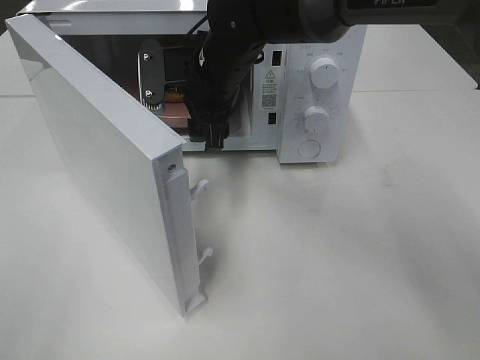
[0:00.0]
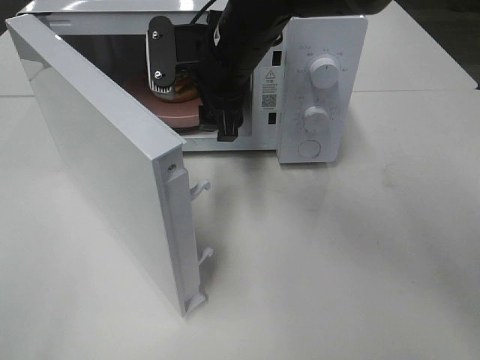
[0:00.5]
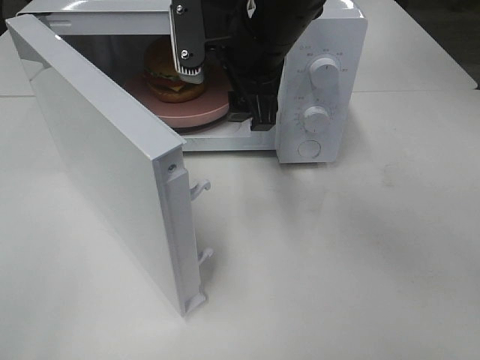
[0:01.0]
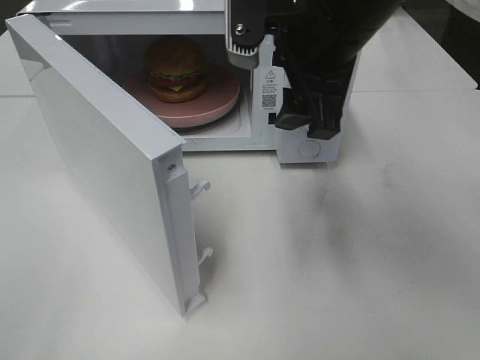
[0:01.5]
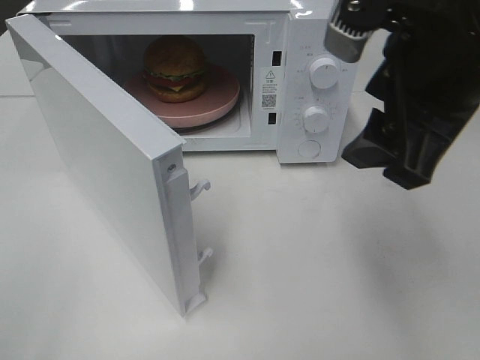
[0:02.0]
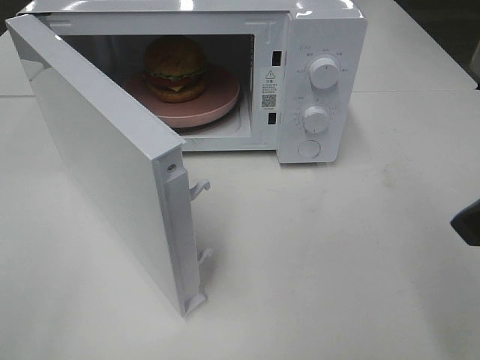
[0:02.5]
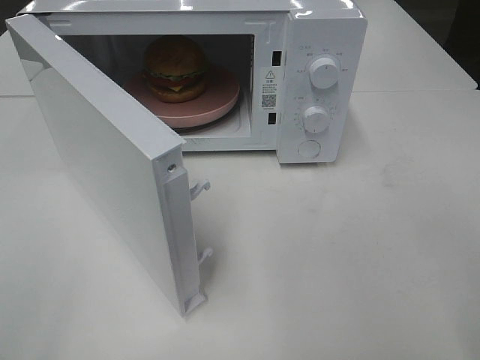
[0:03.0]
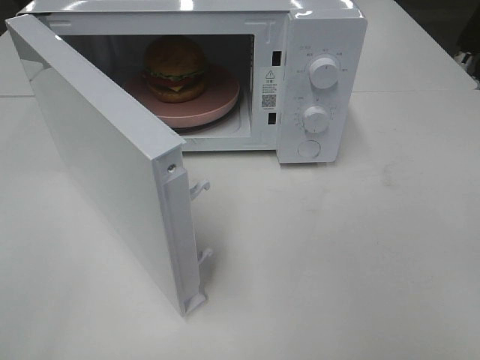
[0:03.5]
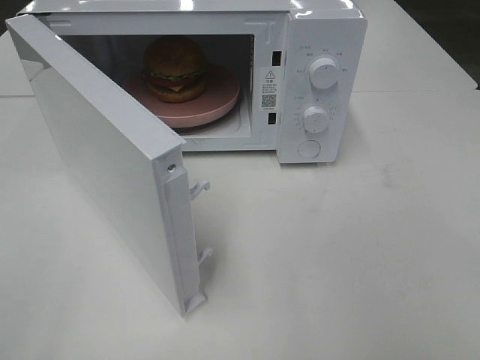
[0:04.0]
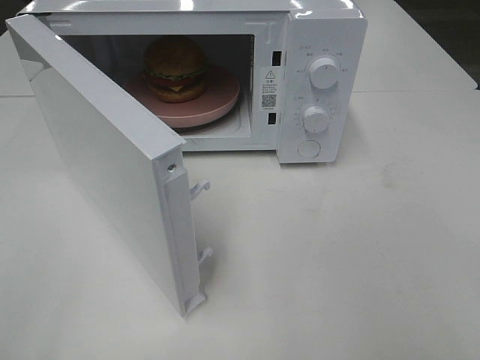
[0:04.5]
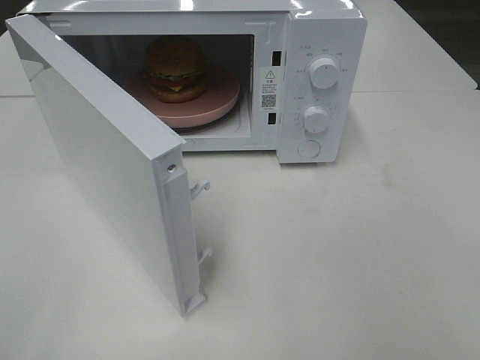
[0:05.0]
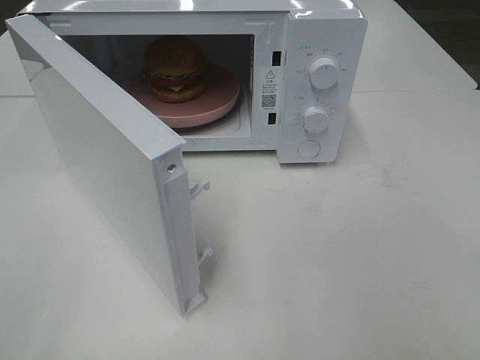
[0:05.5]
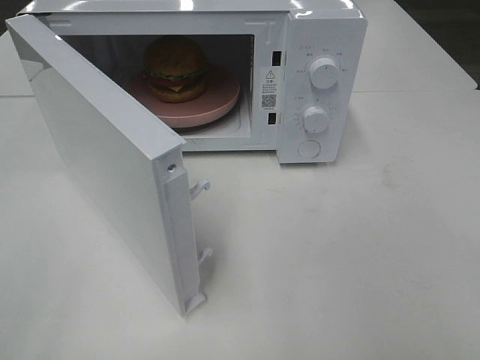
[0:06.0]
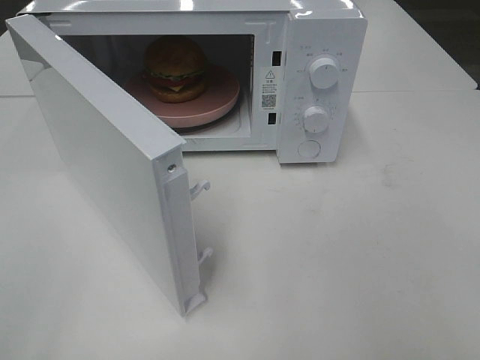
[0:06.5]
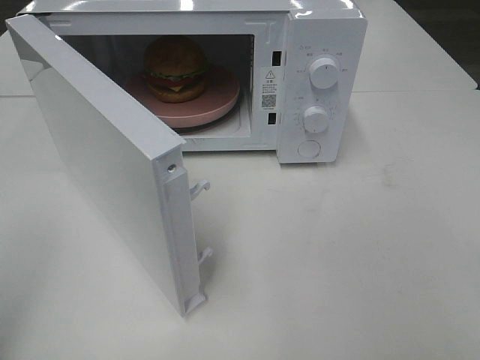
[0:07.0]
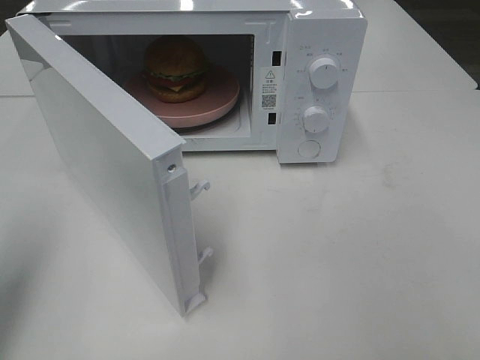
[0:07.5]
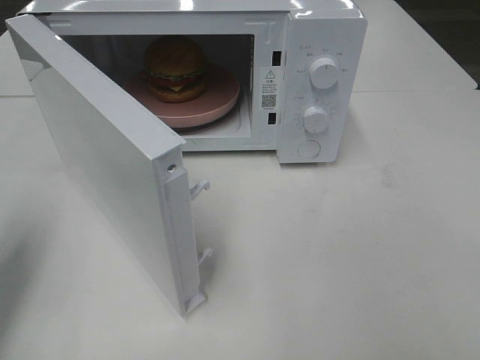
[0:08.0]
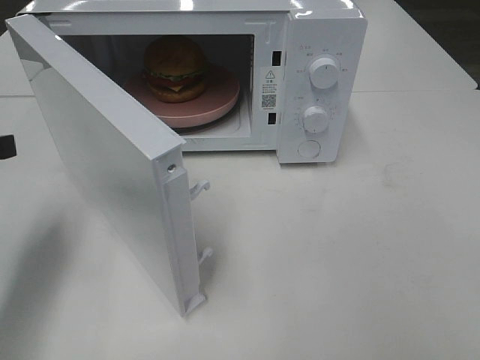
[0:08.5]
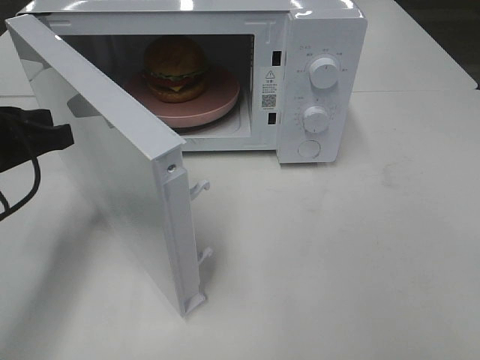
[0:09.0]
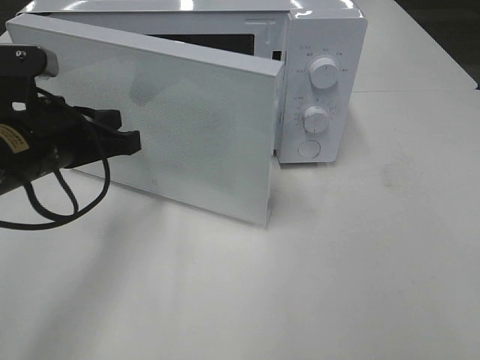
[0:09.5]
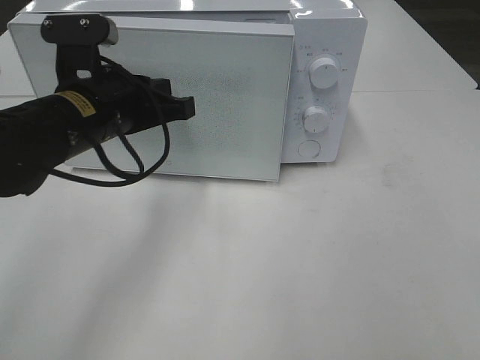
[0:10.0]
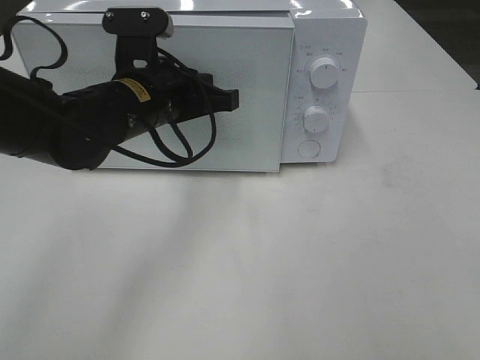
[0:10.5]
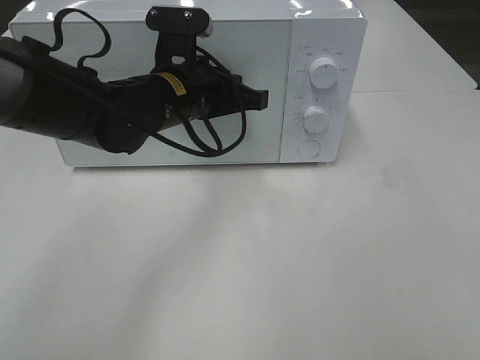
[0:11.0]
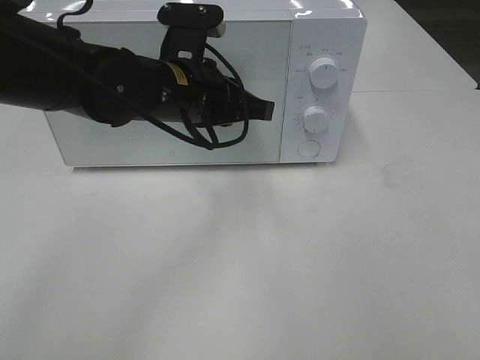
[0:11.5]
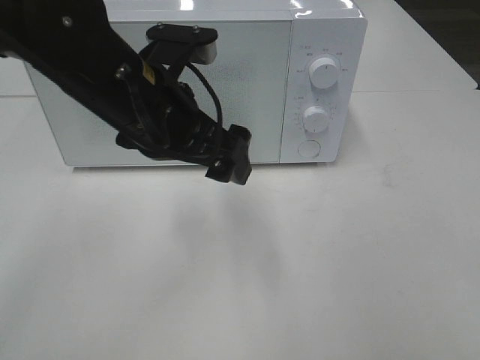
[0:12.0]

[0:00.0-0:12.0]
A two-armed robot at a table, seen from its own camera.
Task of the whole recording: Heat the burger.
Step, 0:00.0 to 0:11.0: Left hand: close the microwave door.
0:00.0 to 0:02.0: The right gripper heads backward, to the right and upward, covering some 30 cm.
0:02.0 to 0:04.0: The right gripper is displaced backward and to the right by approximately 20 cm.
0:06.0 to 0:08.0: The left gripper shifts some 20 cm forward, and closes.
0:08.0 to 0:10.0: The left gripper shifts roughly 20 cm to the right and forward.
0:10.0 to 0:12.0: The left gripper goes some 5 cm to the right, and opens its fingers.

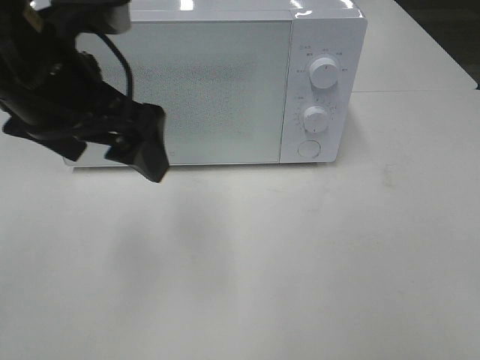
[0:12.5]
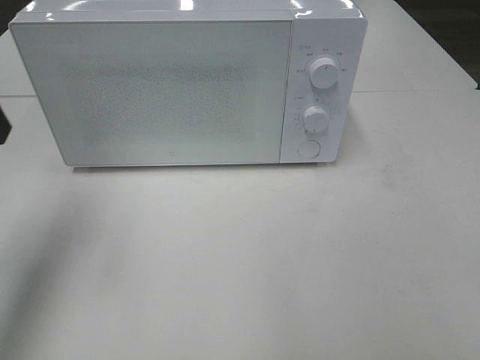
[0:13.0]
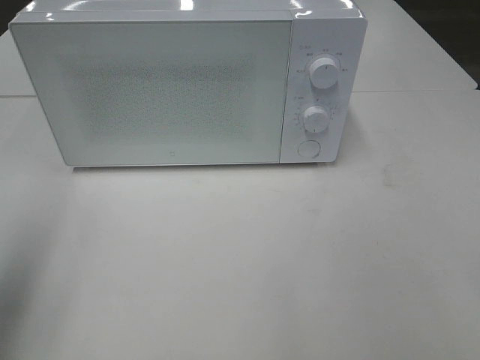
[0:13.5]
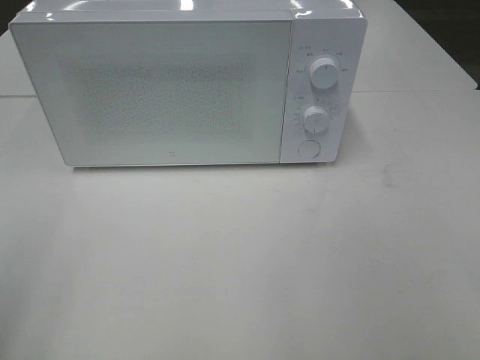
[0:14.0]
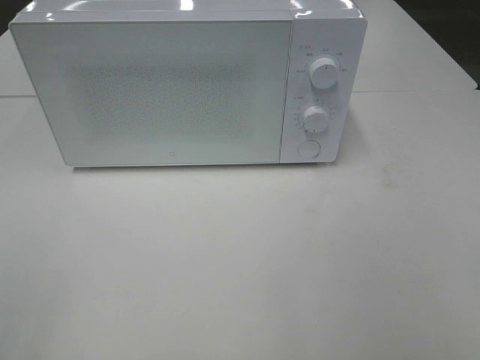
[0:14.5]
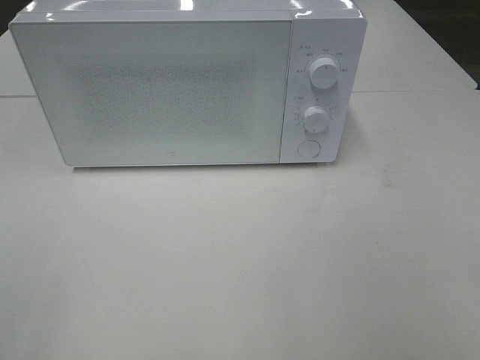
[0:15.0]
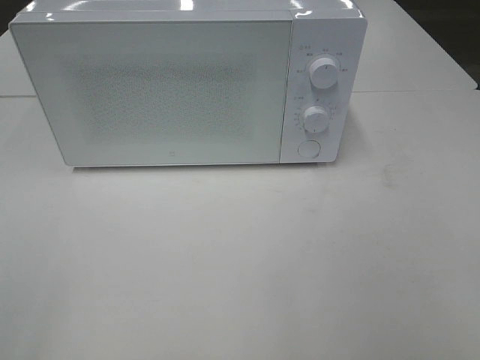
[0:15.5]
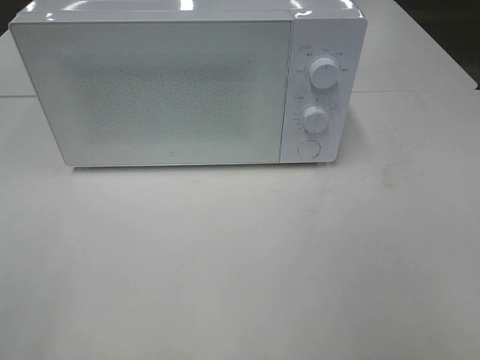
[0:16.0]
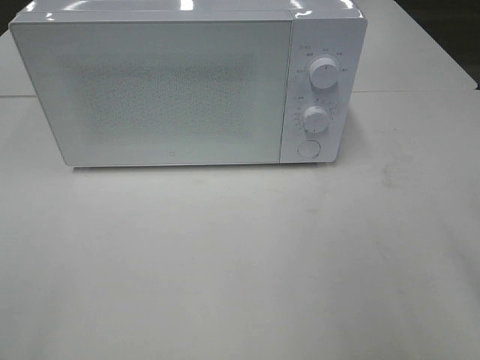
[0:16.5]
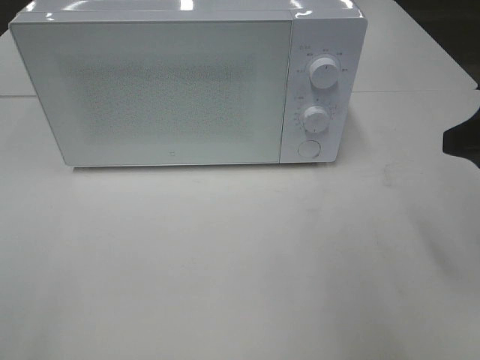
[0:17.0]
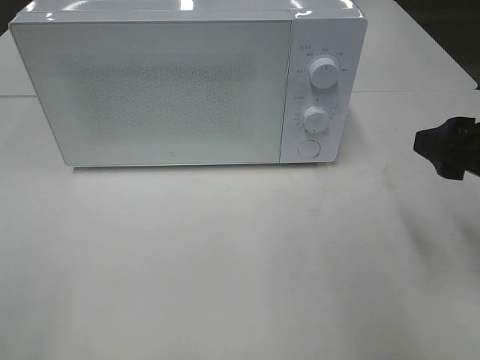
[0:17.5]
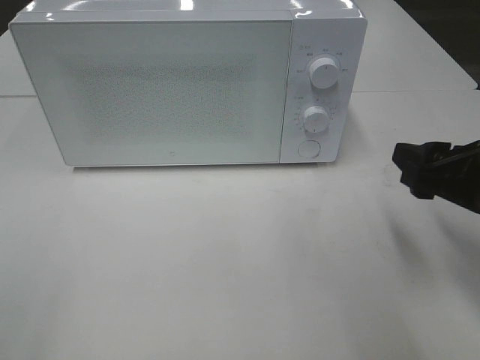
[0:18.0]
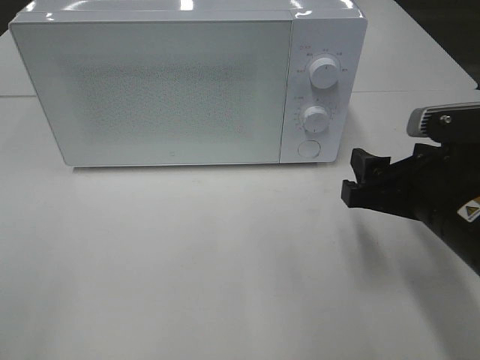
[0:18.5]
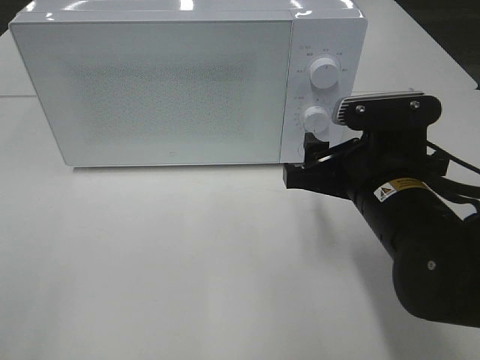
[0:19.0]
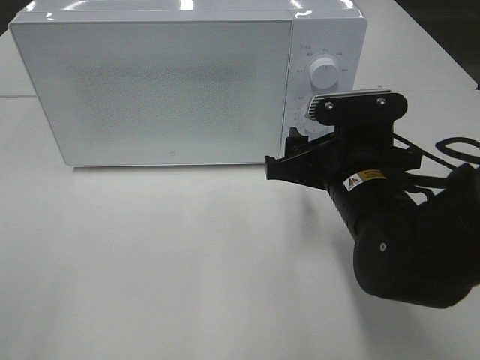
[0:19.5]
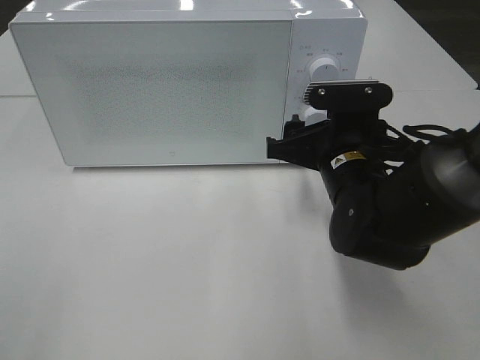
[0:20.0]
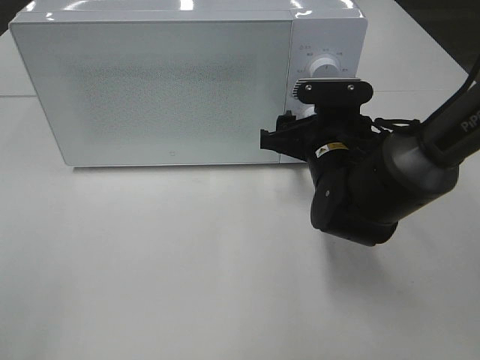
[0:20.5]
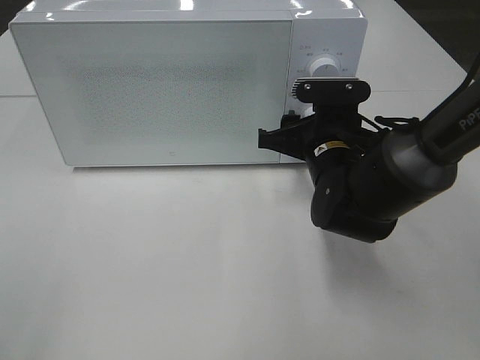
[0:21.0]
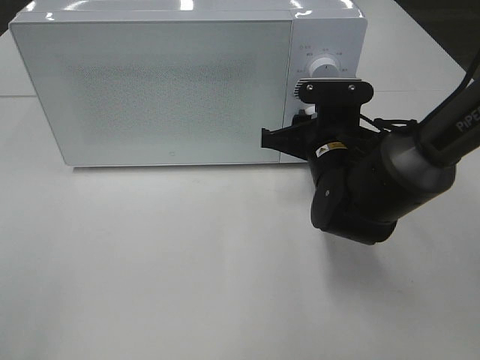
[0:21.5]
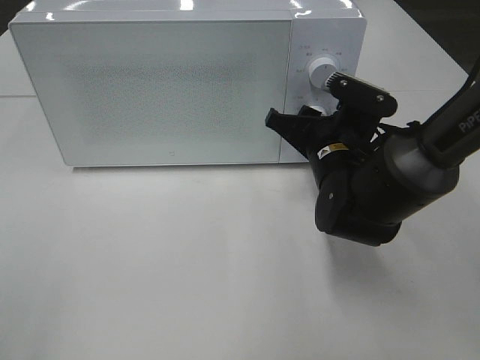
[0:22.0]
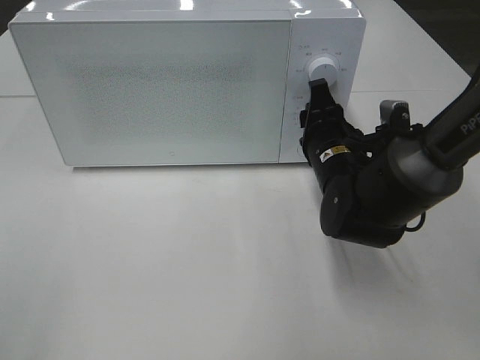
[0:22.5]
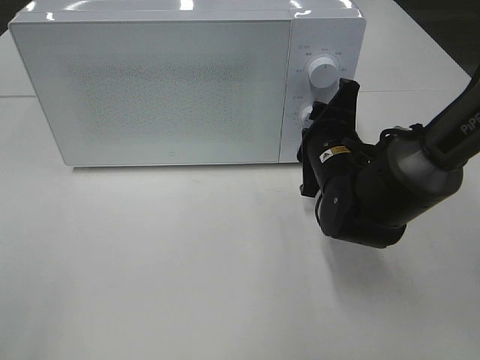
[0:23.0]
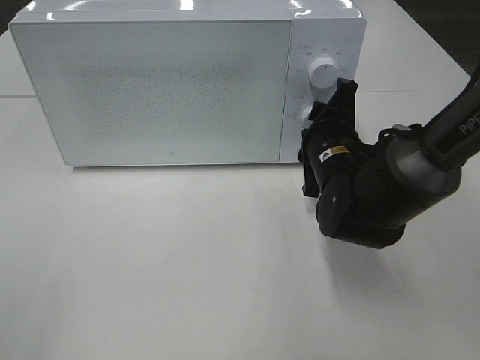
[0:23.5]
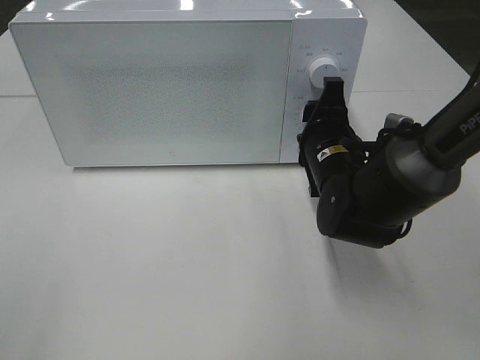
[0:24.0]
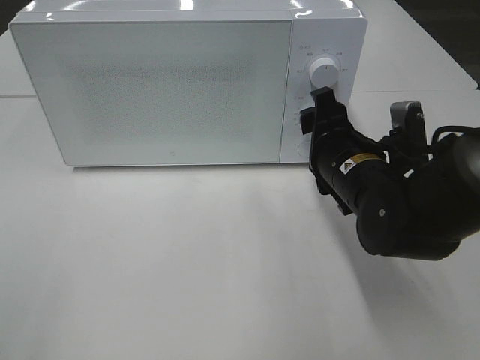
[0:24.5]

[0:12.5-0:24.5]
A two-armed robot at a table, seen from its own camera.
Task of the whole recording: Heat the burger.
Step, 0:12.5 to 0:24.0: Right hand: twist timer button.
0:12.5 to 0:14.5: The left gripper heads backward and to the left, covering approximately 30 cm.
0:16.5 to 0:18.5: The right gripper is displaced downward, forward and to the left by about 20 cm.
0:18.5 to 0:20.5: The right gripper heads forward and to the left, covering some 15 cm.
0:20.5 to 0:22.5: The right gripper closes its fingers.

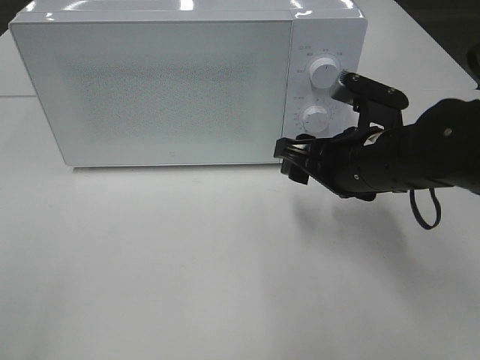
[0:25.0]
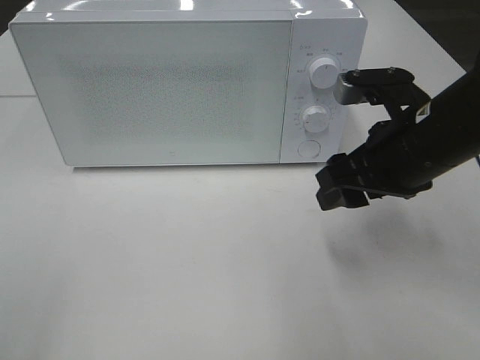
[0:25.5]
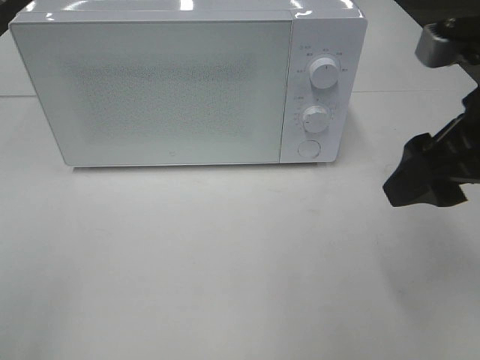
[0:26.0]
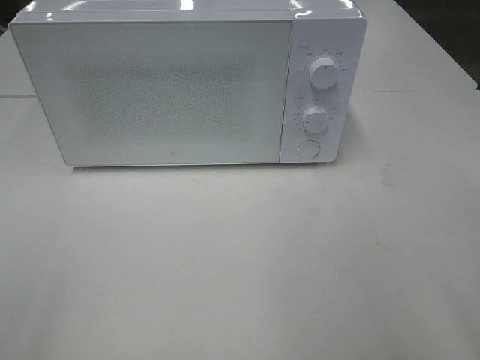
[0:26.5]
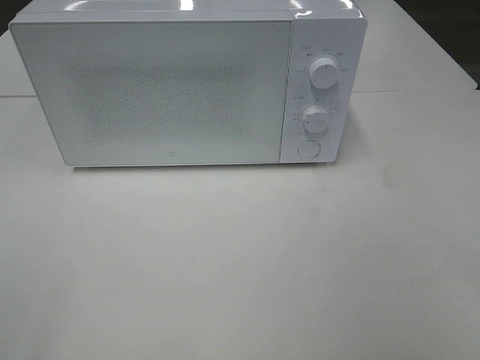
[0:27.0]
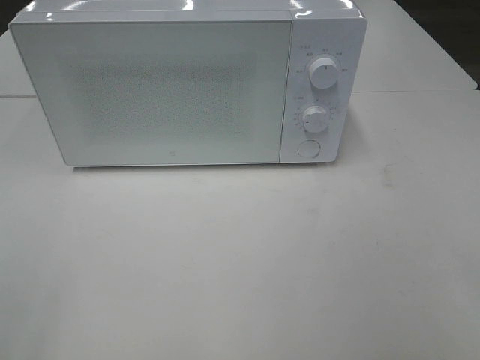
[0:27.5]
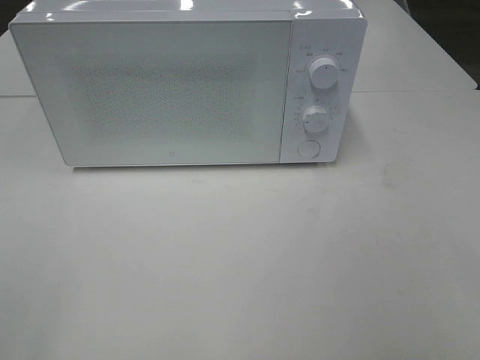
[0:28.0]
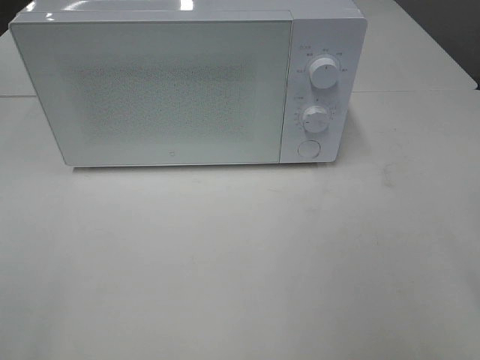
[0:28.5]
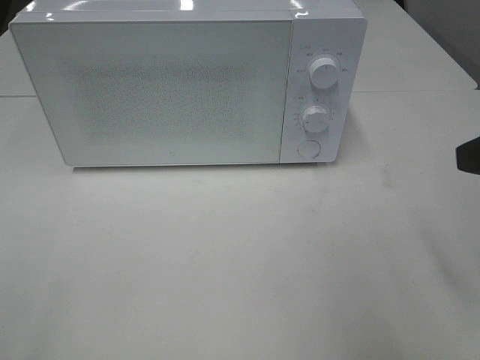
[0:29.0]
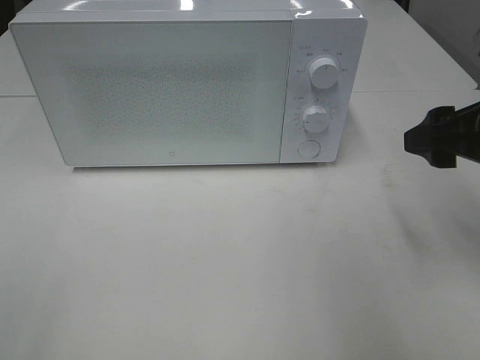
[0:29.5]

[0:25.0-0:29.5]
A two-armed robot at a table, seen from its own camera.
Task of the whole recording: Heat the burger.
0:25.0 to 0:27.0: The right gripper shifts some 30 cm backward, upward and to the right.
0:27.0 to 0:29.5: The right gripper is displaced forward by roughly 20 cm.
